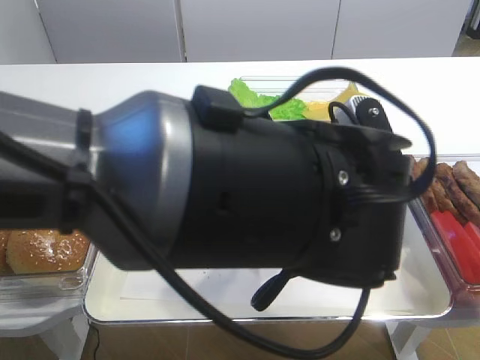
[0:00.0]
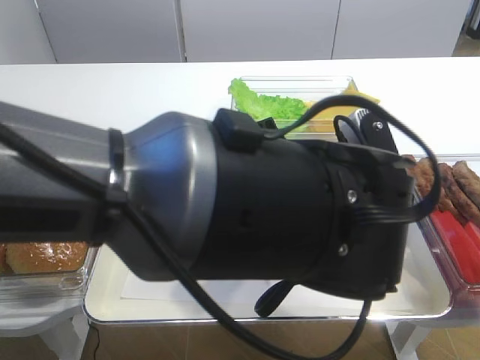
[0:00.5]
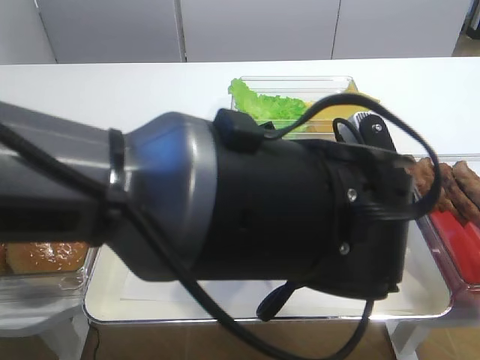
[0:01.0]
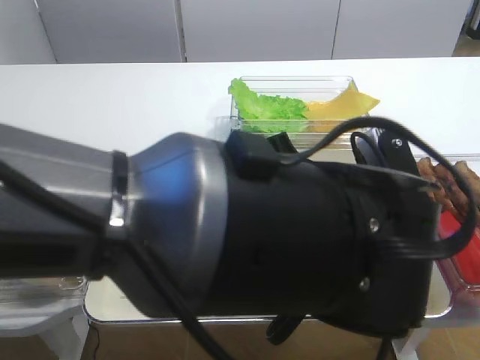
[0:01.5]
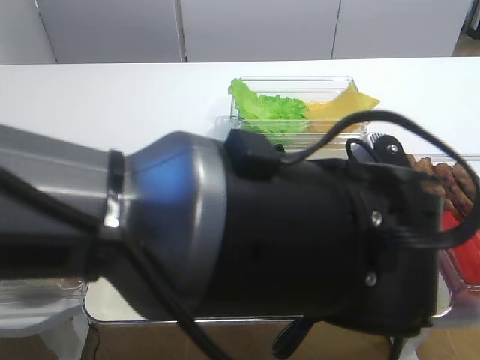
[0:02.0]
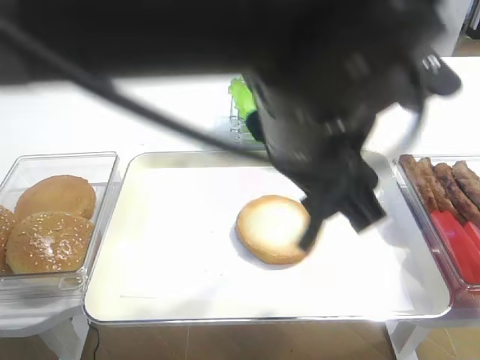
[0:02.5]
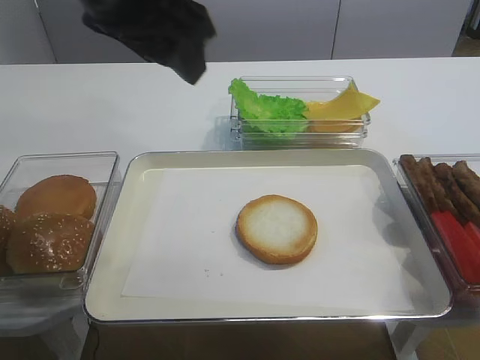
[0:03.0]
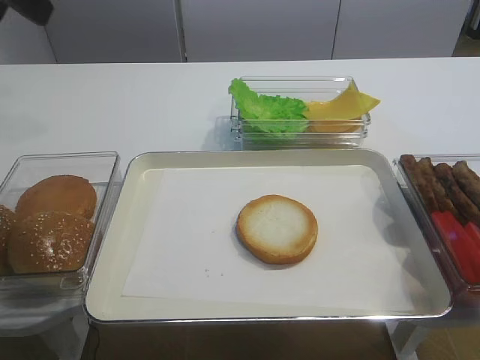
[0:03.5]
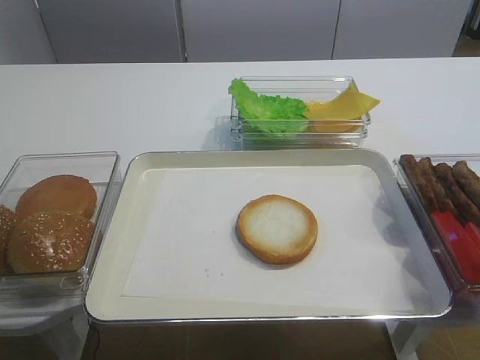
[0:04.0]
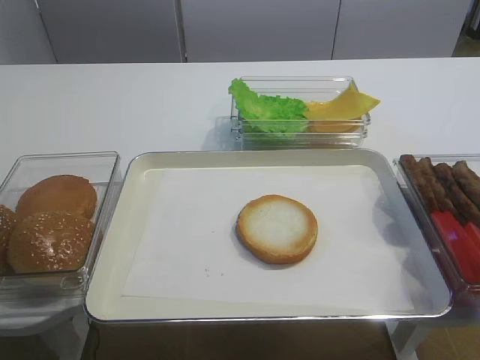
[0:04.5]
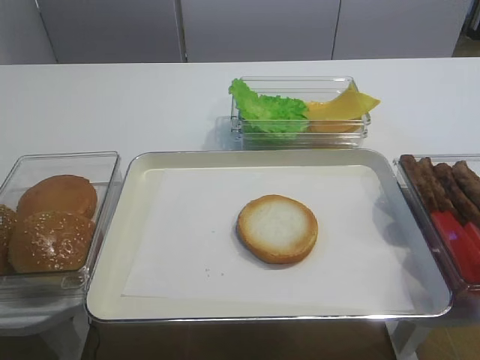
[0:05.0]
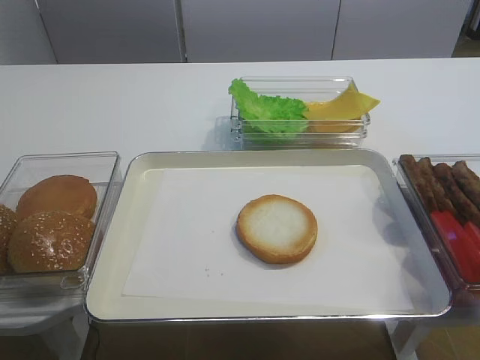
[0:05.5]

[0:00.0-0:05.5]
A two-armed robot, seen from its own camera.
0:00.0 to 0:02.0: The left gripper opens its fingers.
0:02.0 to 0:03.5: The left gripper travels to the left and upward by approximately 35 cm.
0:03.5 to 0:05.5: The left gripper heads backward and downward, covering roughly 30 cm.

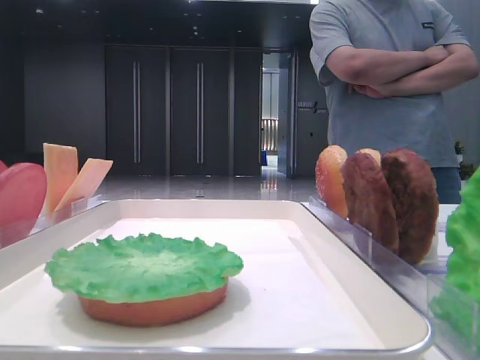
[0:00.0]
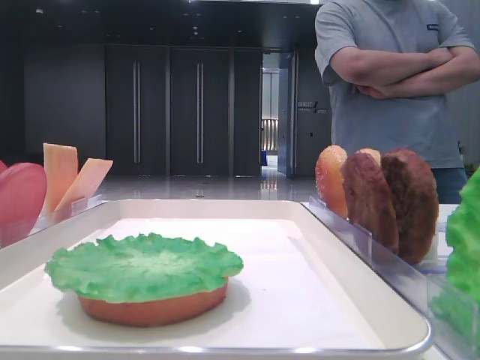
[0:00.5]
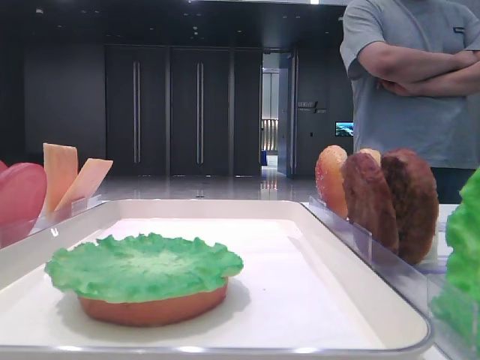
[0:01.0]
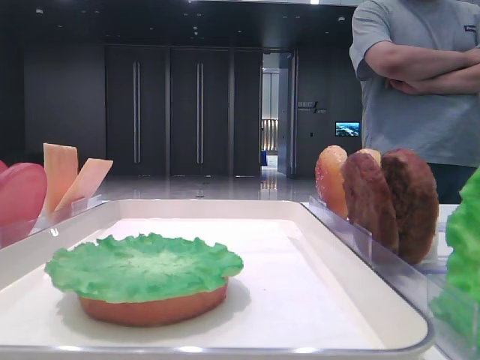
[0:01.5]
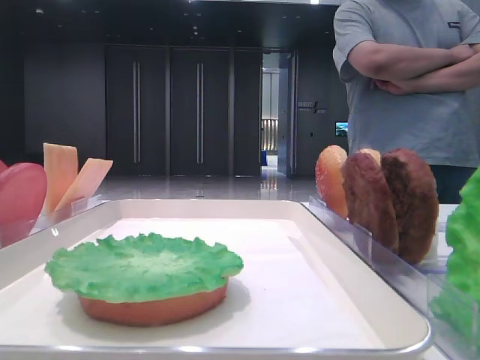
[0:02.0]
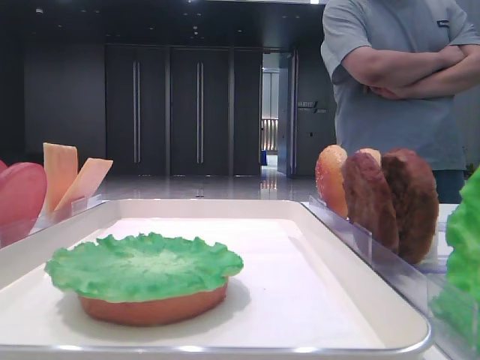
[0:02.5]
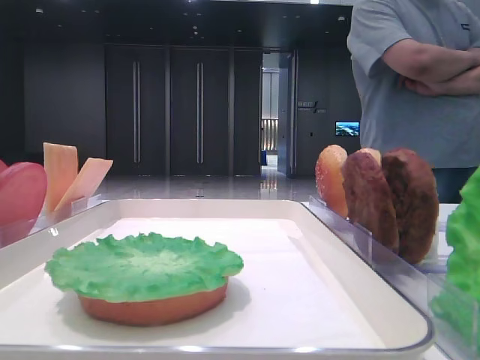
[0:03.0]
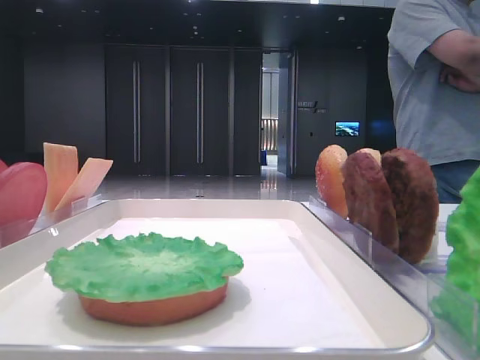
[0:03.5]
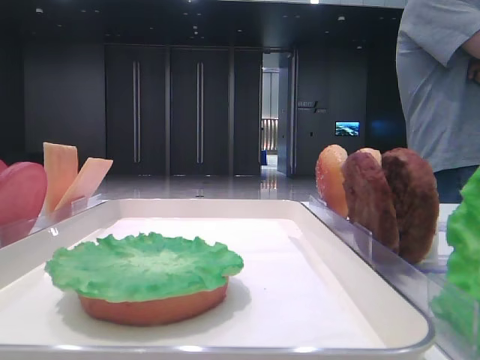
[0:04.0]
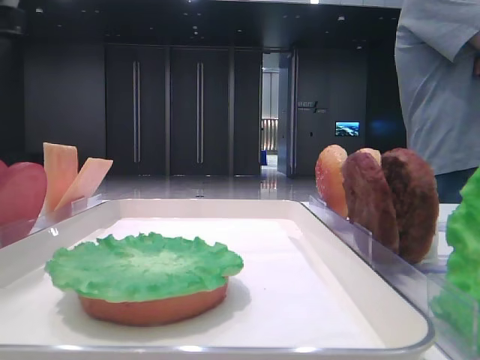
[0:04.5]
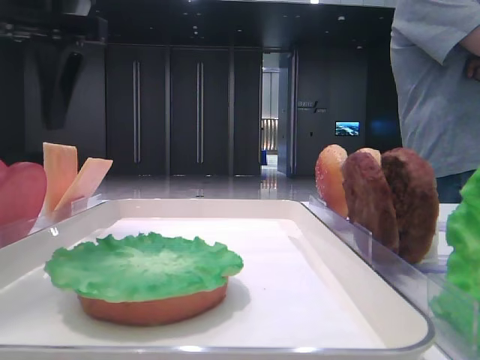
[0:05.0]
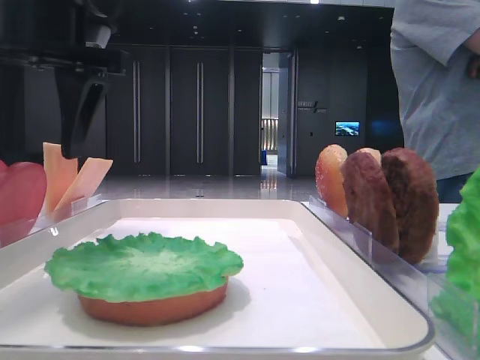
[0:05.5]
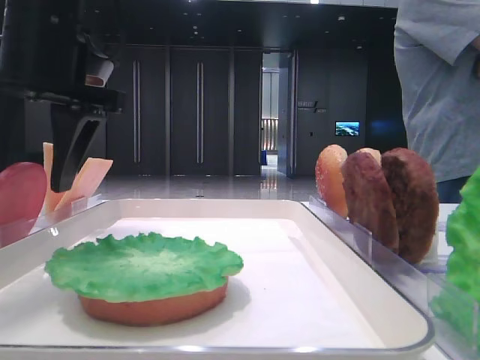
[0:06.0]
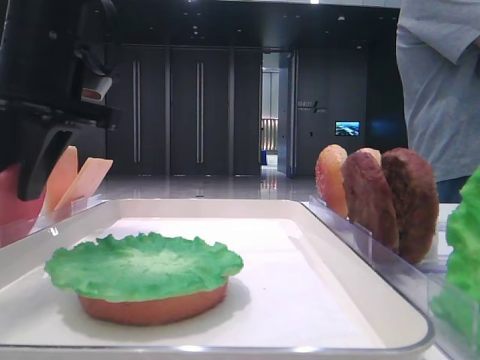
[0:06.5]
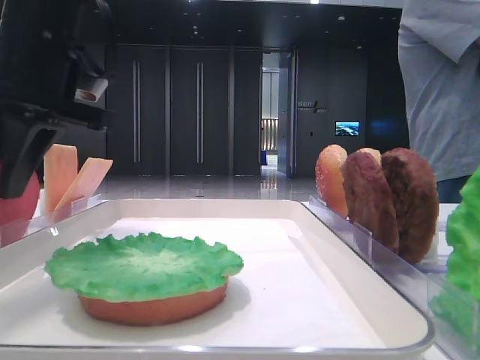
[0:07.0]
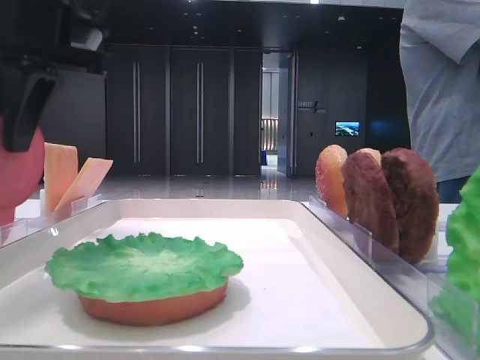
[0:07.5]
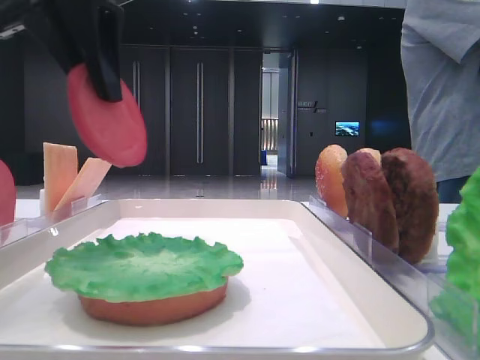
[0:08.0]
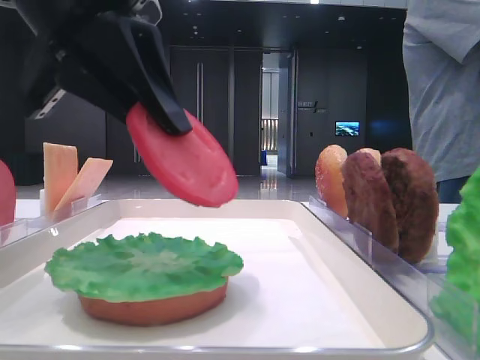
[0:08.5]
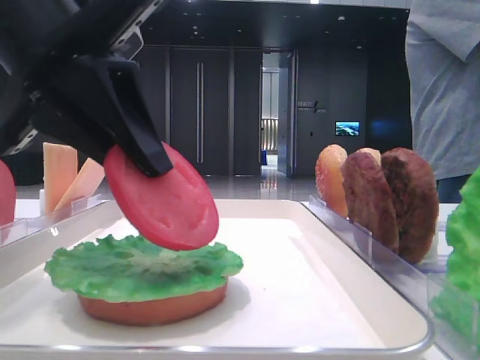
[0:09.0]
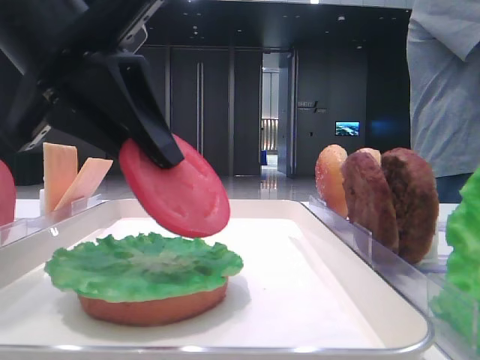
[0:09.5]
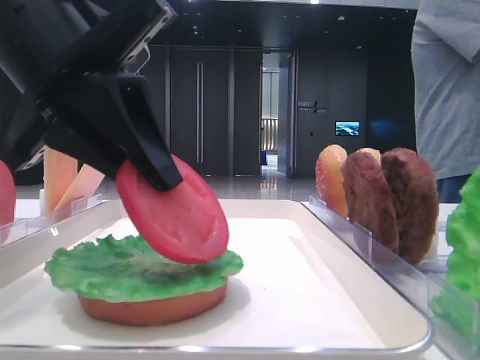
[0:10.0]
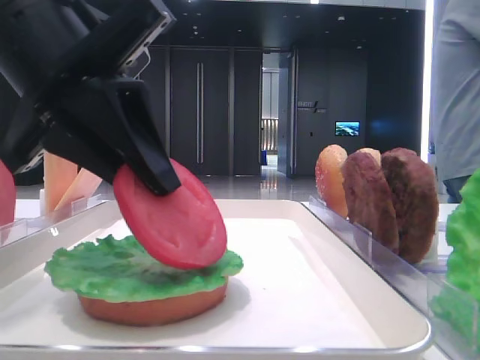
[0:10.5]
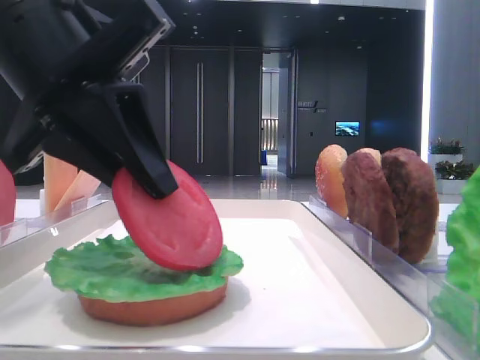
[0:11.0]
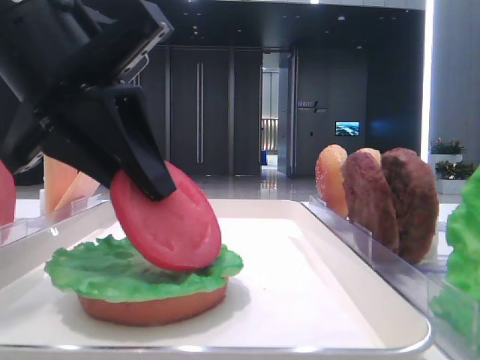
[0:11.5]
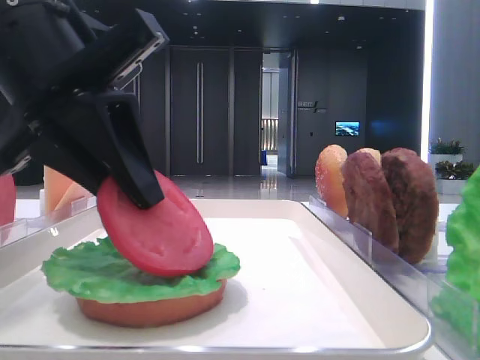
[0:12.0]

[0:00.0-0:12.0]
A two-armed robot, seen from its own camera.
Step, 0:00.0 to 0:06.5: Pick up the tomato slice with the left hand.
0:04.0 to 0:06.0: The left gripper travels to the right and downward by roughly 15 cm.
0:06.0 to 0:08.0: The left gripper is displaced upward by roughly 5 cm, and closes up.
0:08.0 to 0:10.0: The left gripper moves downward, some 10 cm.
0:10.0 to 0:12.0: Neither gripper changes place.

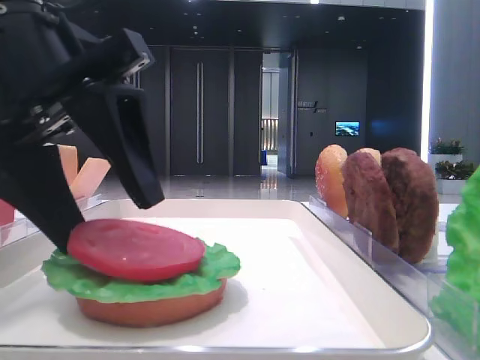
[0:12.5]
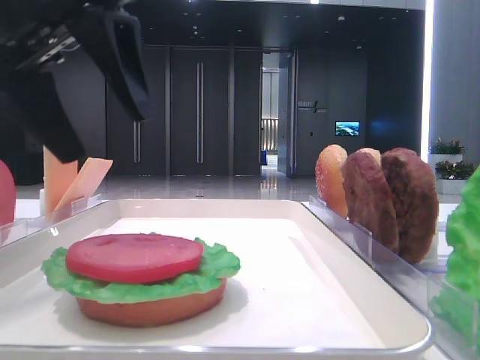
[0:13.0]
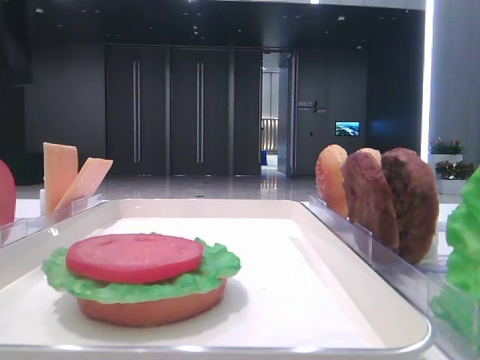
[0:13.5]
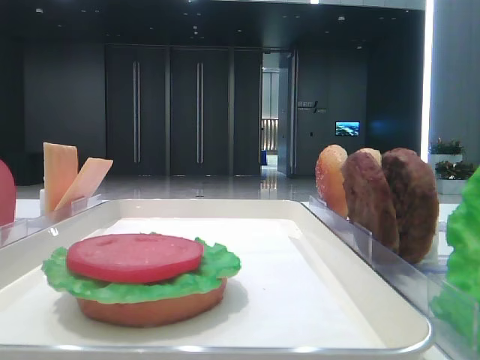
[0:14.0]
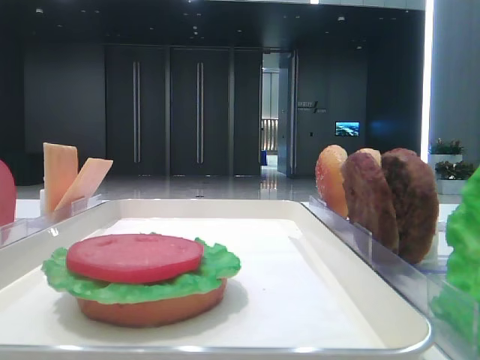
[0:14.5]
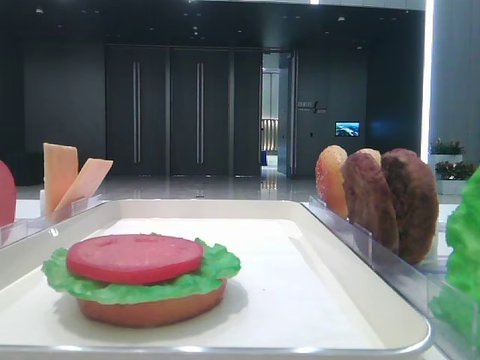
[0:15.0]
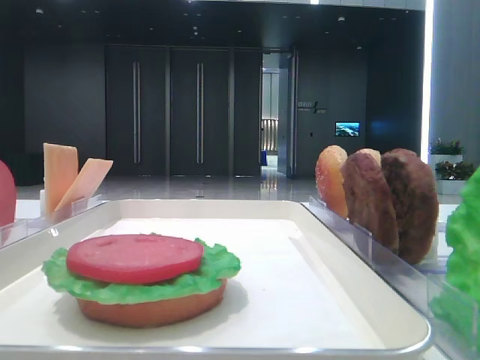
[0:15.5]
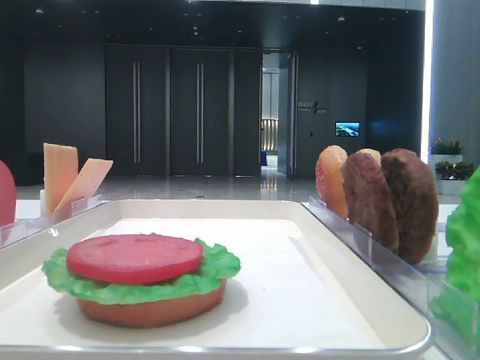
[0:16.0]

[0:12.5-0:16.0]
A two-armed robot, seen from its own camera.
0:12.5 to 0:14.5: The left gripper travels to the left and upward by roughly 20 cm.

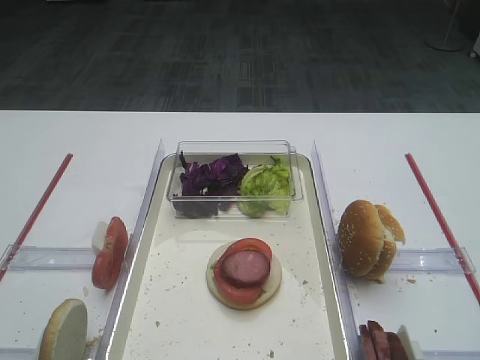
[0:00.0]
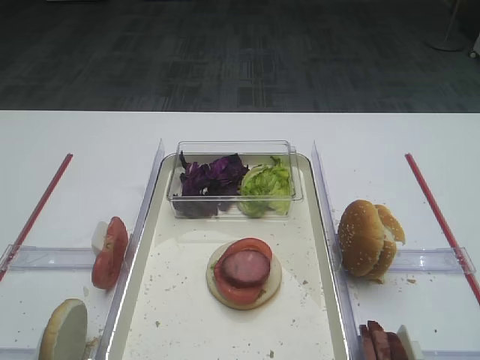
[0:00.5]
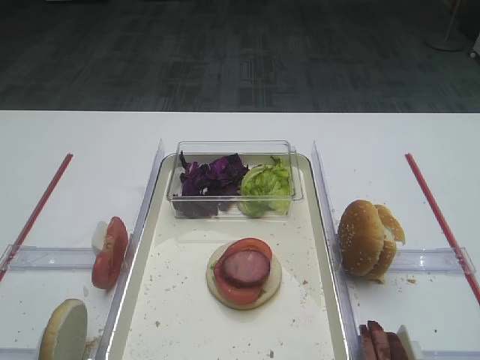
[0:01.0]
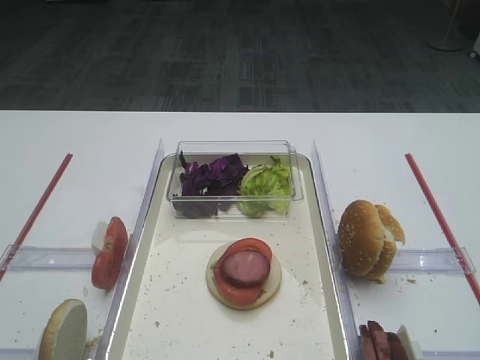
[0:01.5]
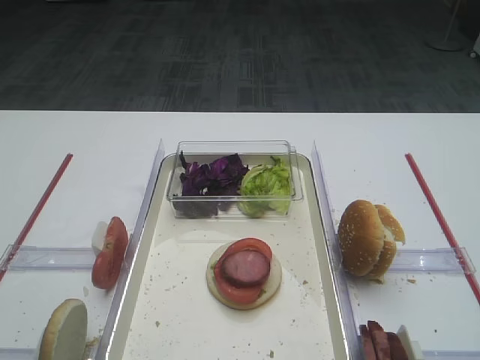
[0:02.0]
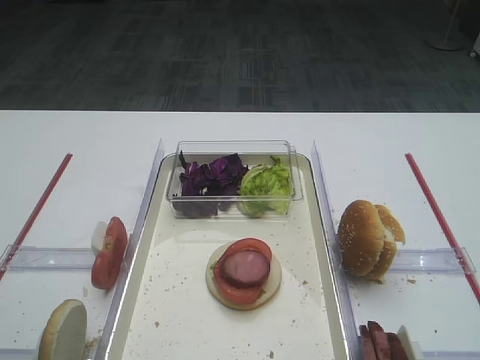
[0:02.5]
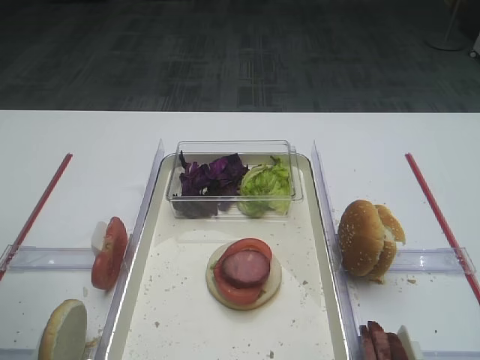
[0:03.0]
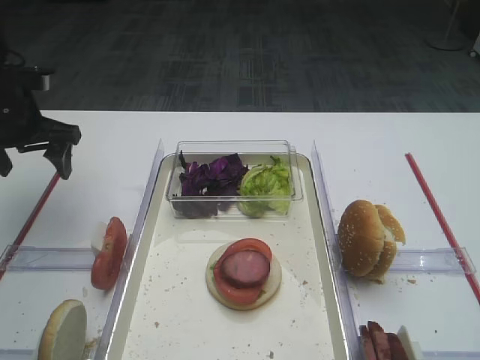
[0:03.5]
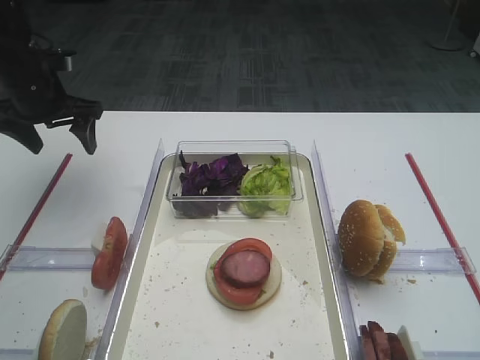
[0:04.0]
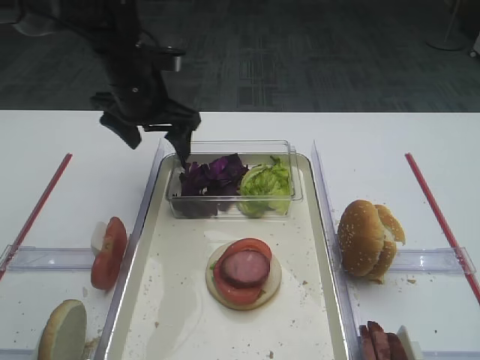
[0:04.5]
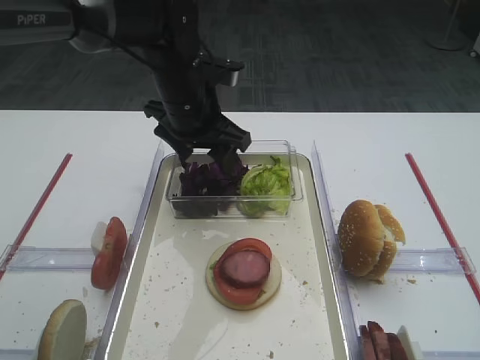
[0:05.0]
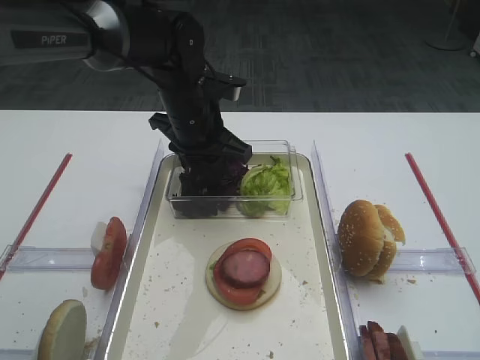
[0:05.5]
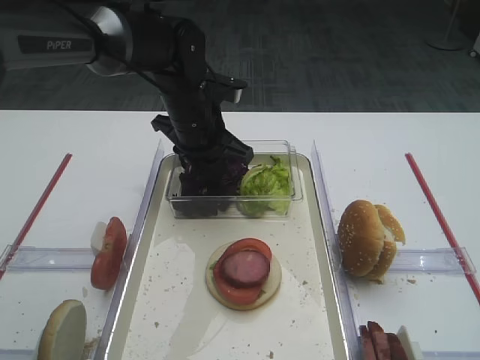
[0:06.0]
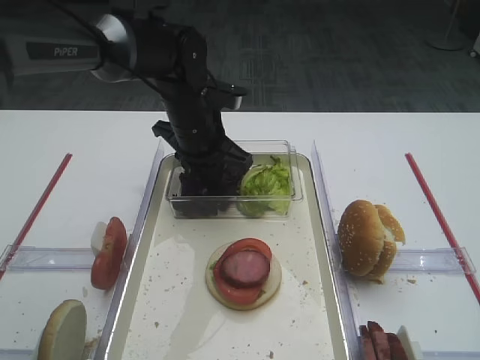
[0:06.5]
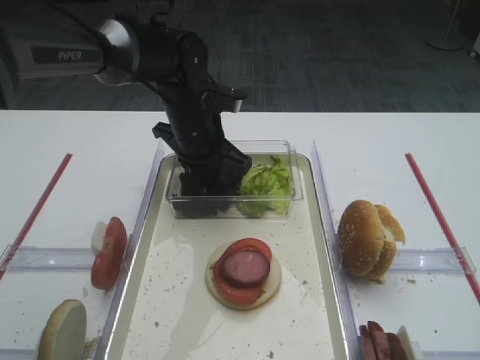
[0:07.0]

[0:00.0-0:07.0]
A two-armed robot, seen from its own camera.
0:02.0 to 0:03.5: The left gripper shifts some 35 cm forward.
0:03.5 to 0:05.0: The left gripper heads to the right, covering approximately 20 cm.
0:05.0 to 0:07.0: The left gripper closes.
